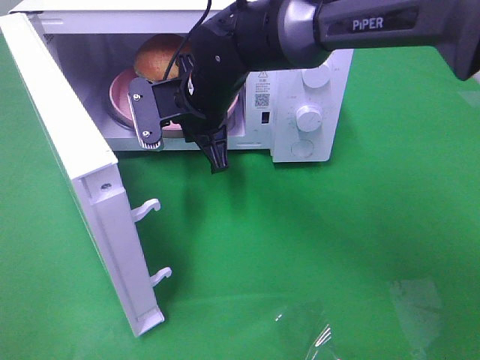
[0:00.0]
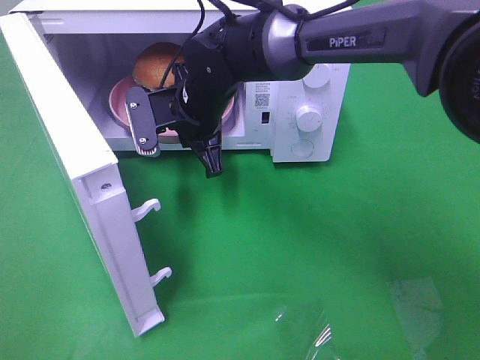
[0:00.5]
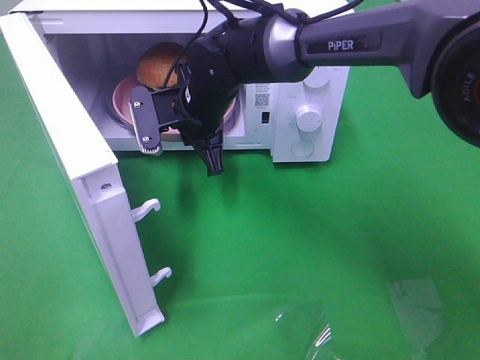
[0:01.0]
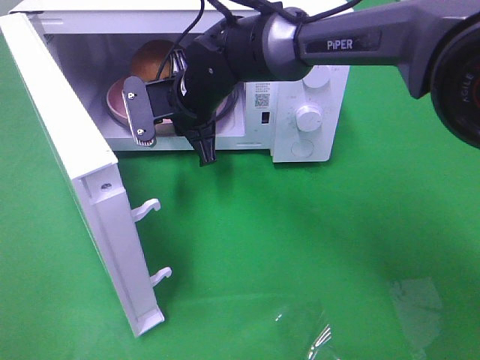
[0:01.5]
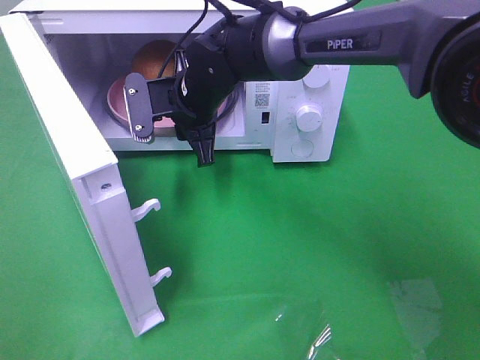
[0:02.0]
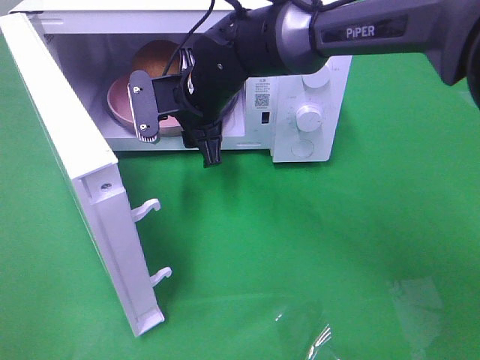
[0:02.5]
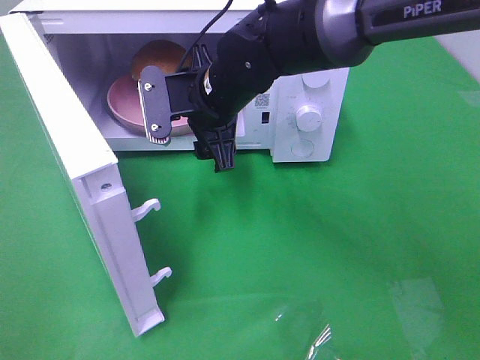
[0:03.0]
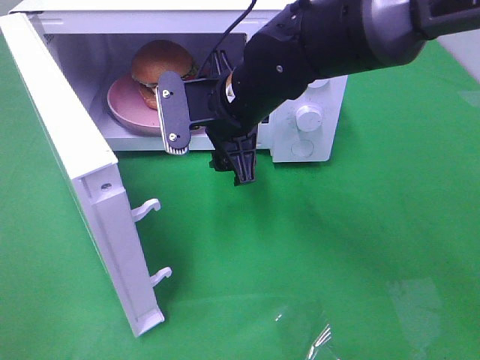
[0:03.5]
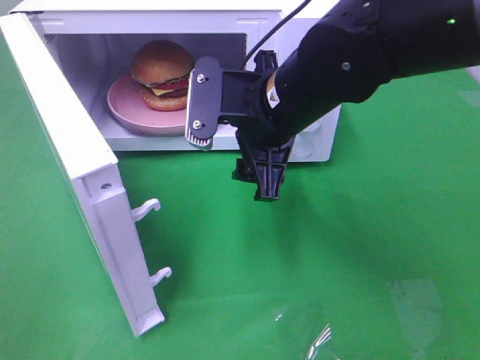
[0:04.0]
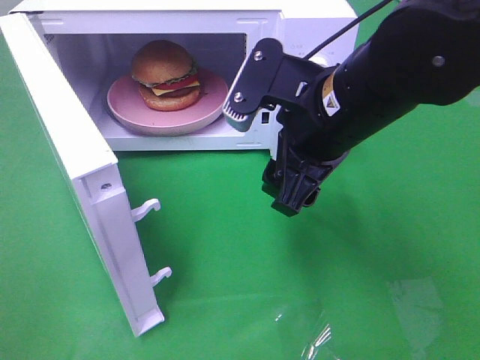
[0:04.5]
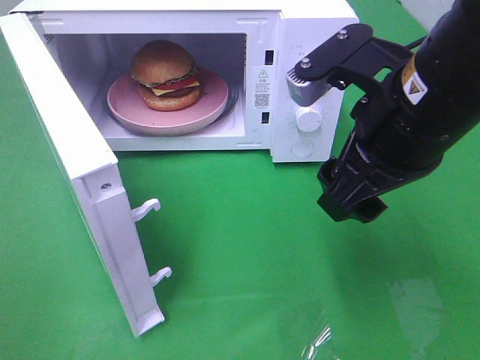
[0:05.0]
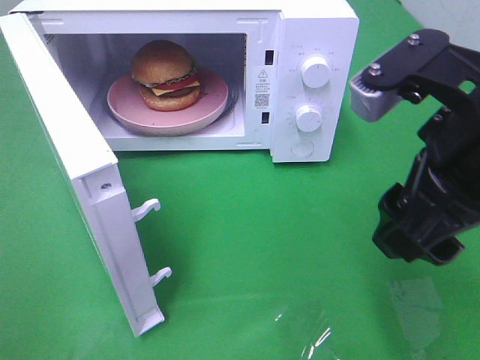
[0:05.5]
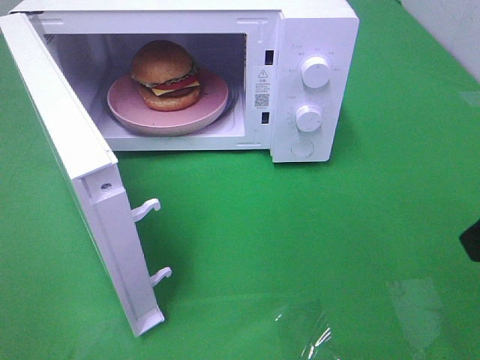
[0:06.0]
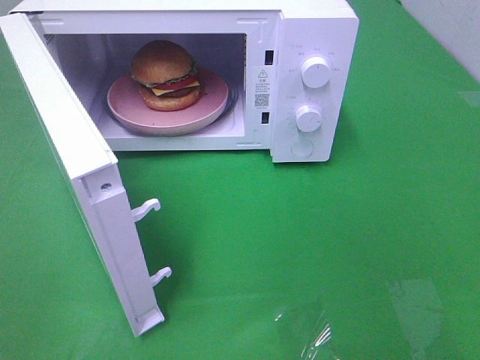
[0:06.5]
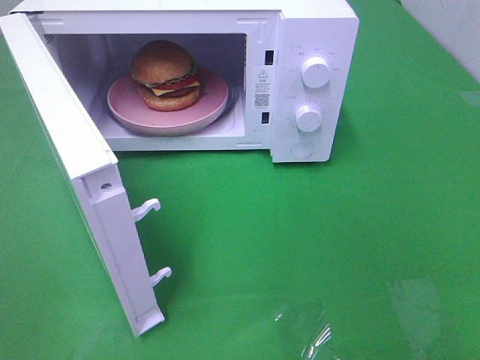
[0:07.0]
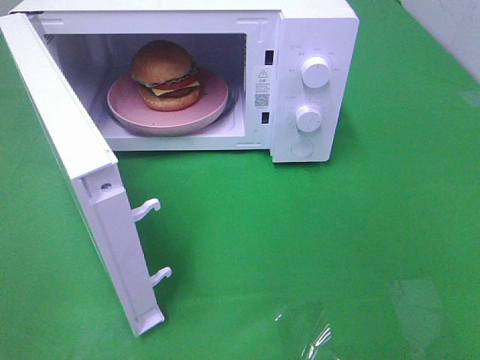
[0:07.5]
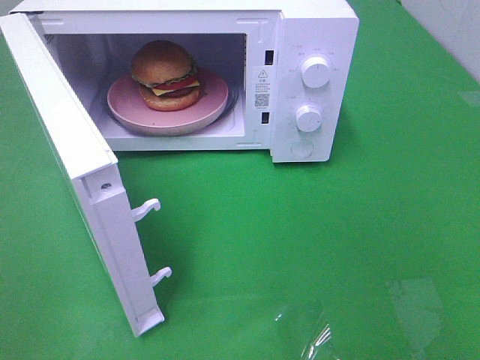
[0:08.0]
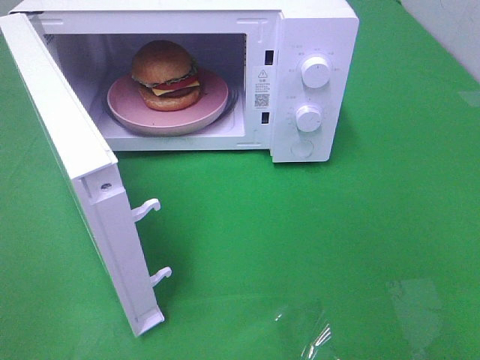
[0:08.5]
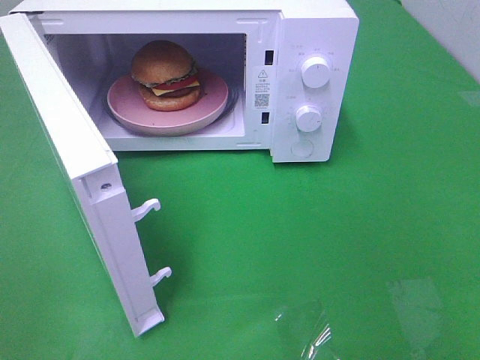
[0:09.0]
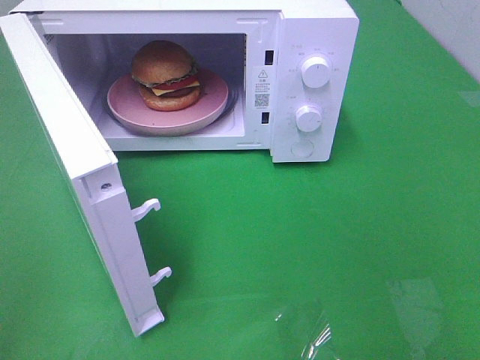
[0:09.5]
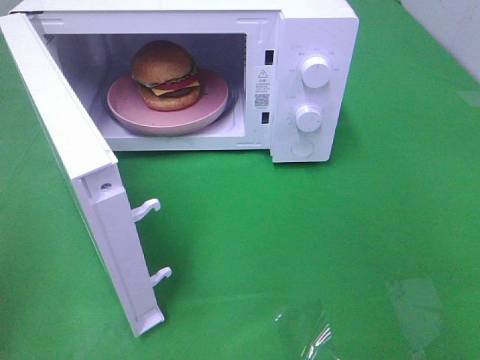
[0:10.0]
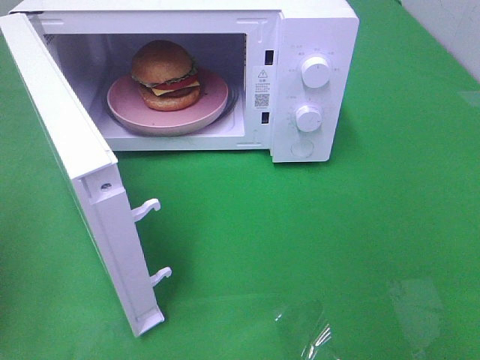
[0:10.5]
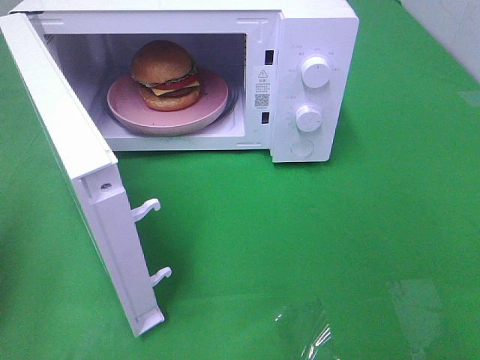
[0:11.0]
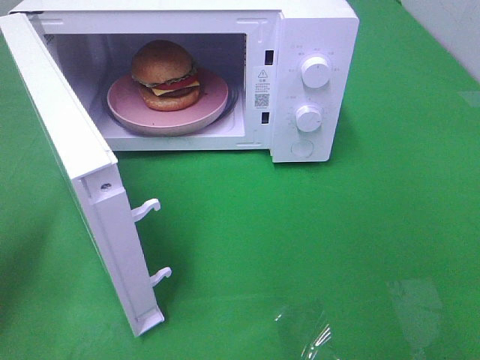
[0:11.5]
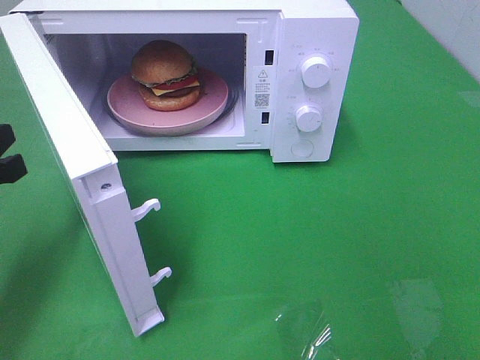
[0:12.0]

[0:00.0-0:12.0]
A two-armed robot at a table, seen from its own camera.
Task of the whole recording: Heat the burger.
Step, 0:00.0 to 0:02.0: Right hand: place the plate in the microwave.
0:00.0 to 0:02.0: The right gripper opens up.
0:02.0 to 0:04.0: The right gripper is displaced backward, to the right and upward by about 15 cm, and opens up.
0:04.0 to 0:06.0: The right gripper moves to the right and backward, about 25 cm.
0:10.0 to 0:12.0: The left gripper is displaced downward and forward by about 20 cm.

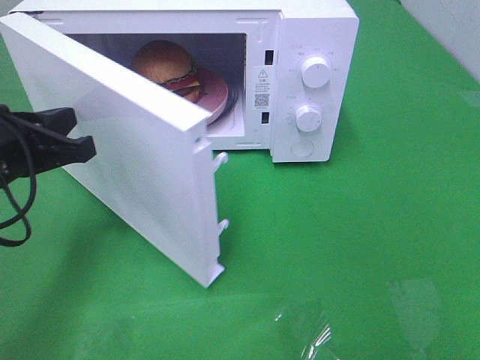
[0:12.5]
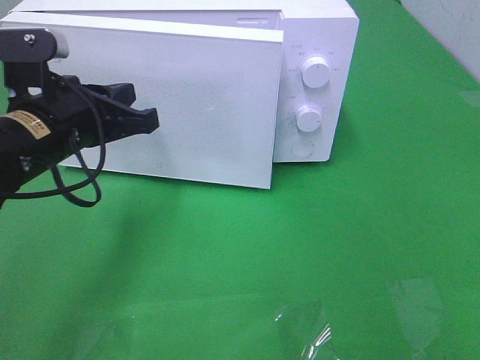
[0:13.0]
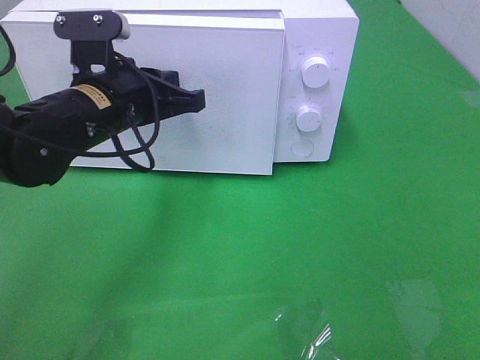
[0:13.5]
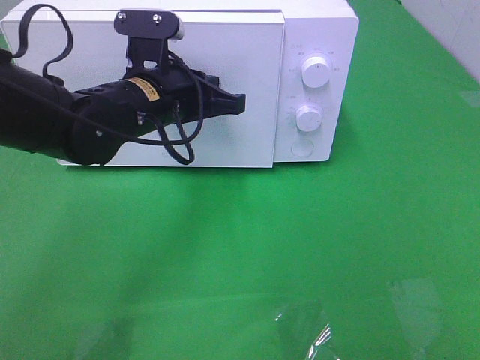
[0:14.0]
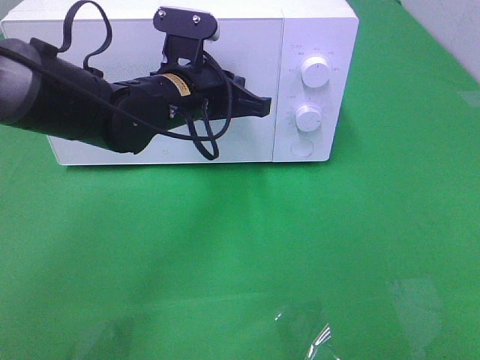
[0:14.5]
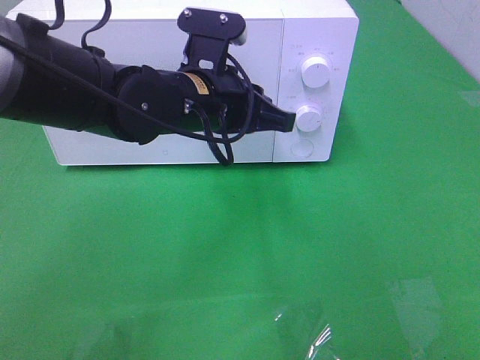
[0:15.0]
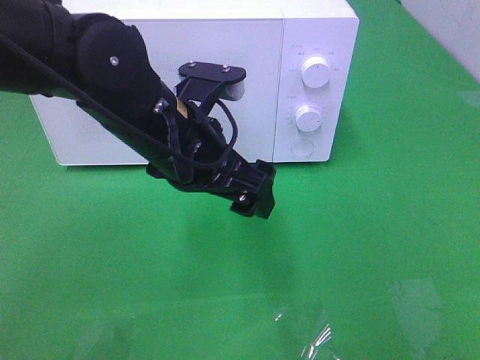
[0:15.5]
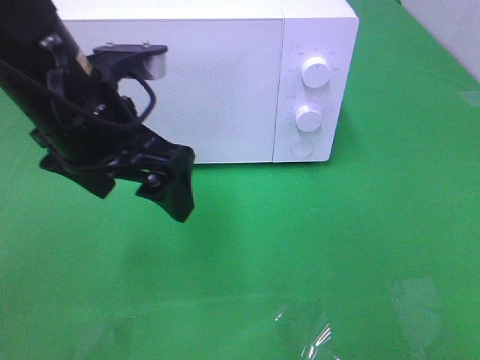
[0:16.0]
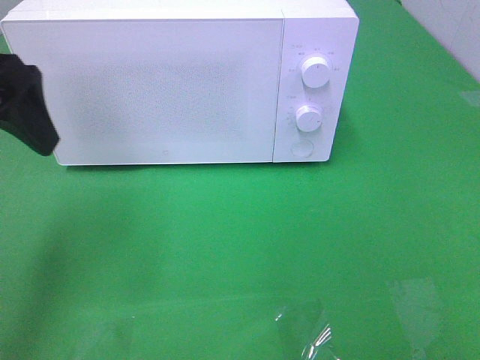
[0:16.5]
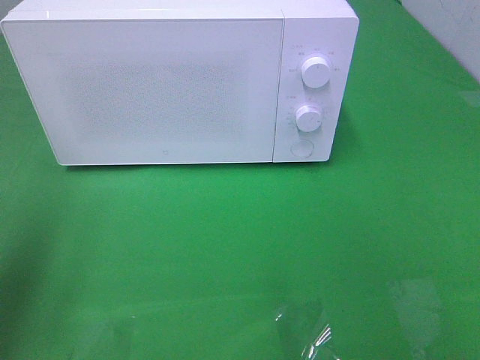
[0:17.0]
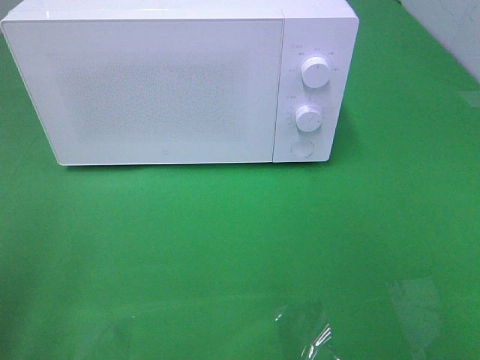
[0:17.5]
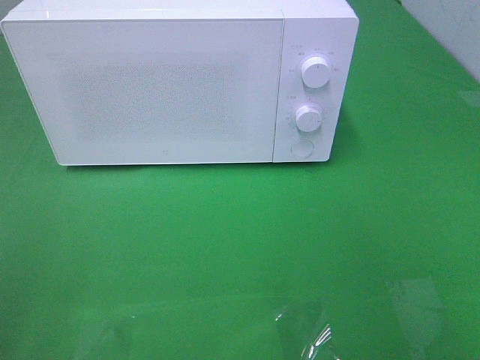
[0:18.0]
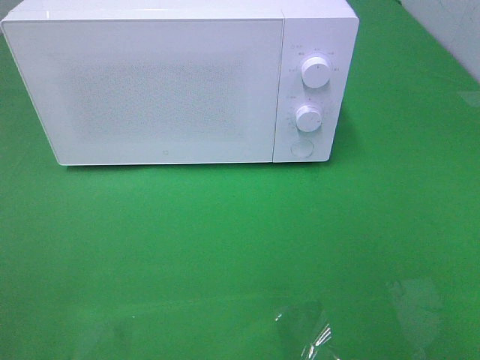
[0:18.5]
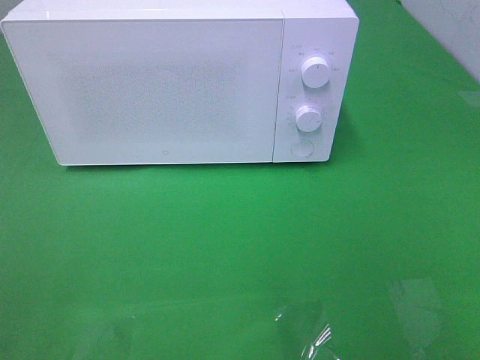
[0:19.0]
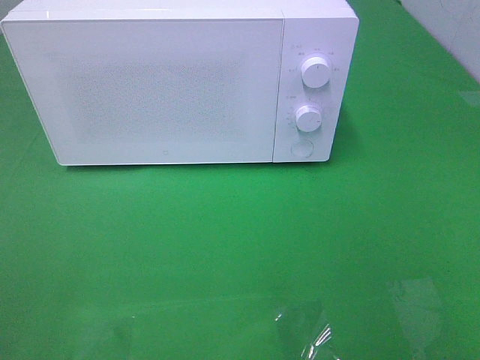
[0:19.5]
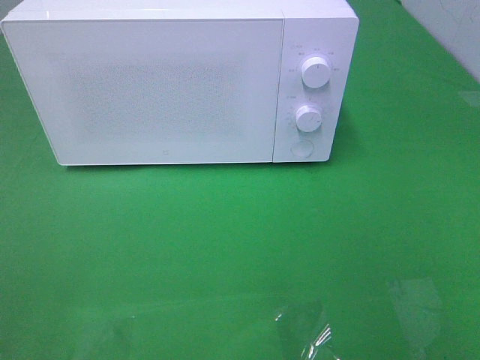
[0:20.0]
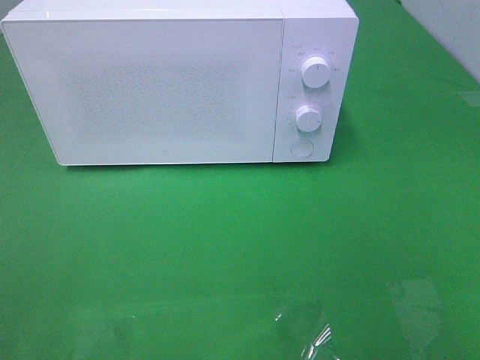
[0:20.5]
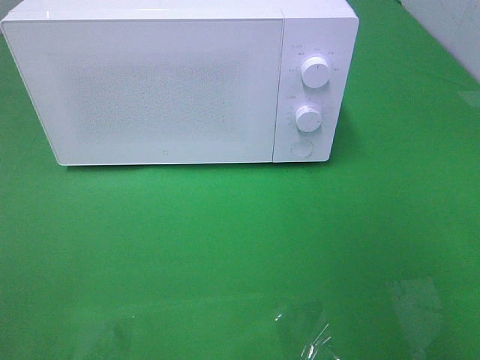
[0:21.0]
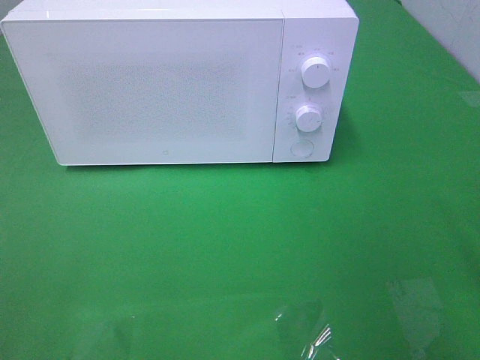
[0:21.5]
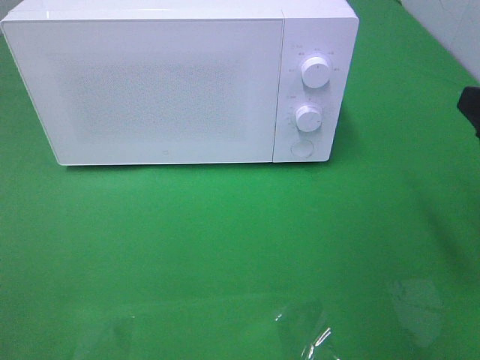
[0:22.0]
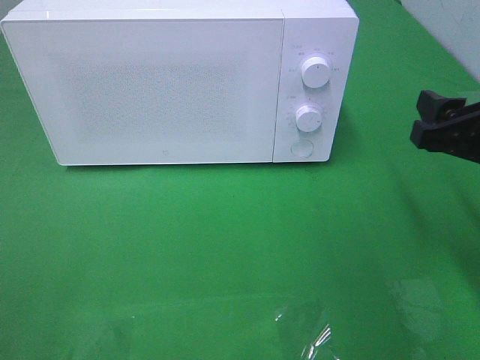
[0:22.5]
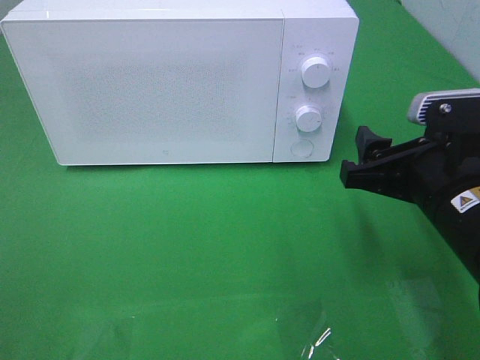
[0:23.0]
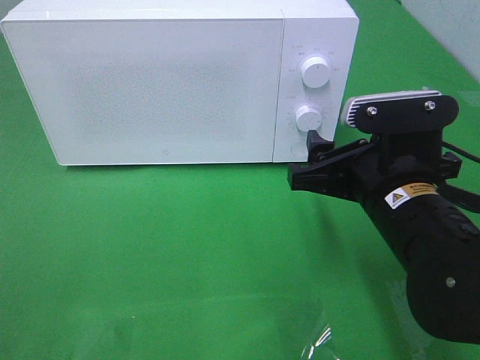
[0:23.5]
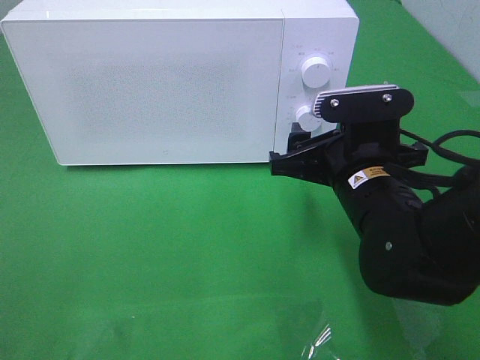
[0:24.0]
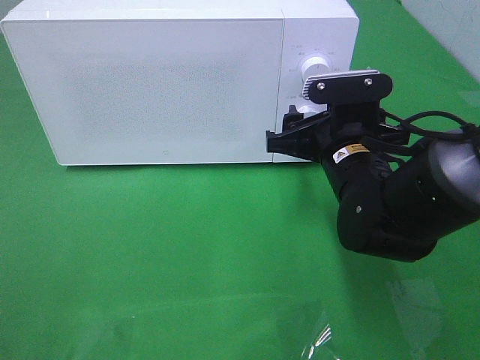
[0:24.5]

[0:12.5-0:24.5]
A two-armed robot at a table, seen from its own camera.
Task of the whole recording: Heat the burger.
Step, 0:12.5 to 0:15.0: Left hand: close the microwave door.
0:12.5 to 0:14.5: The left gripper shifts about 20 cm to the right and forward.
0:14.5 to 0:16.5: The left gripper heads to the left, upward and backward, covering some 25 cm, and opens up.
0:16.5 to 0:18.5: The left gripper is displaced backward by some 25 cm.
0:20.5 to 0:22.5: The right gripper travels forward and downward by roughly 20 cm.
0:22.5 to 0:24.5: The right gripper heads to the left, forward and downward, covering about 15 cm.

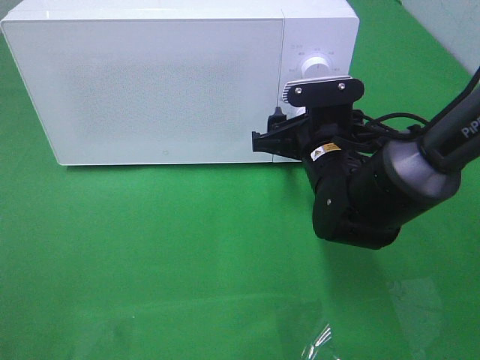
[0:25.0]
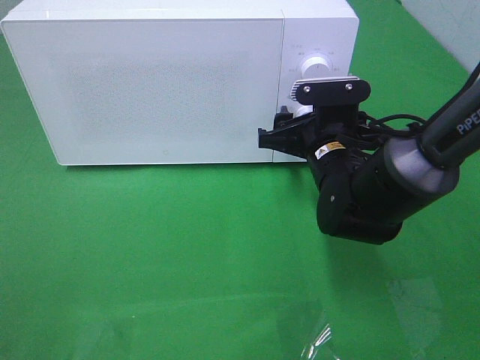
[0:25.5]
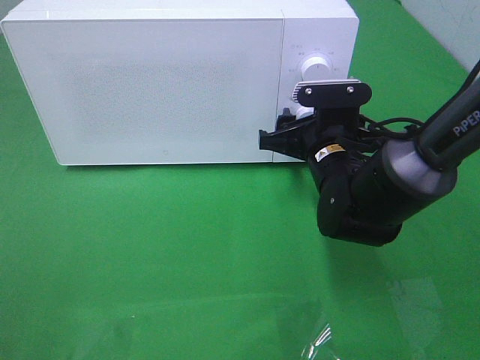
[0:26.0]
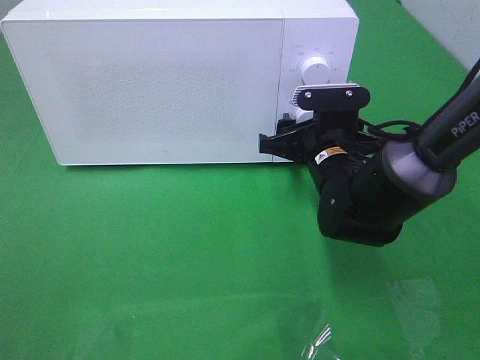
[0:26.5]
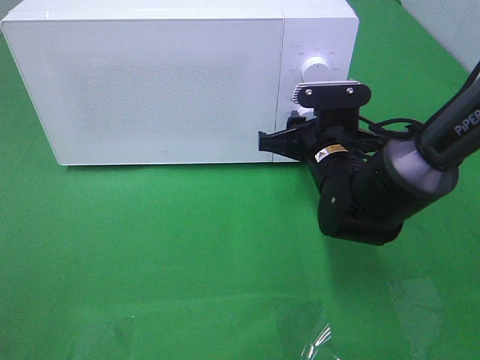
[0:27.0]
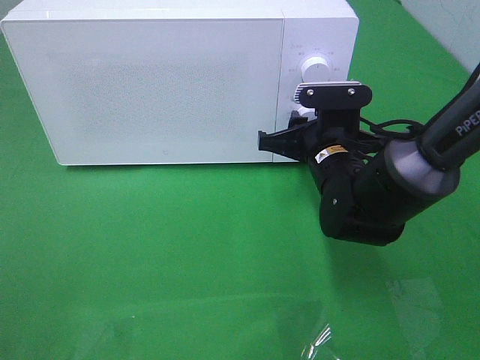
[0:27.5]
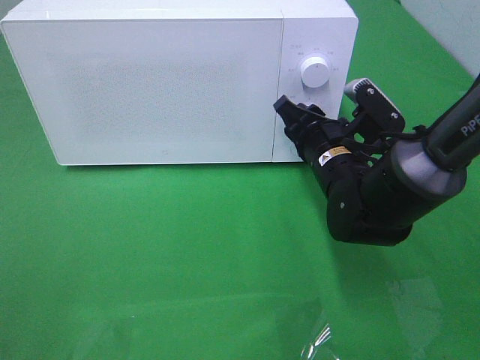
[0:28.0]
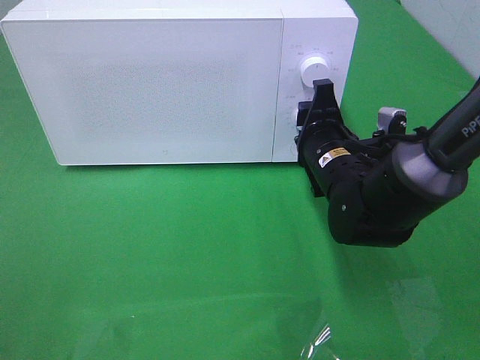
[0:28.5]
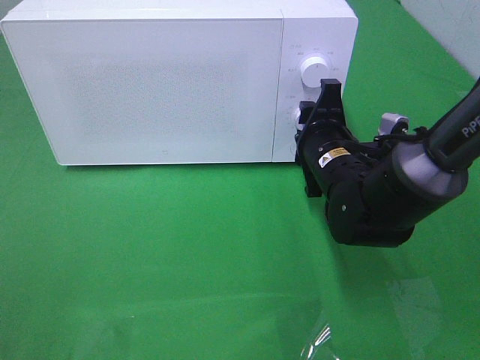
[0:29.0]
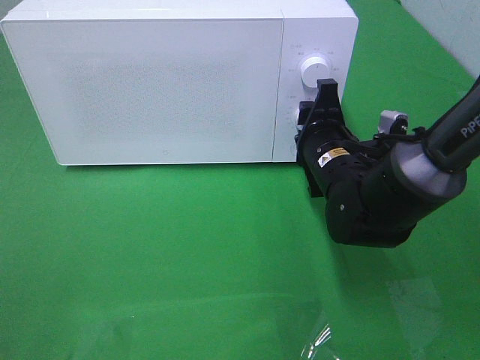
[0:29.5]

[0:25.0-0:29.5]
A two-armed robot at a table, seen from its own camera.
Task of the whole recording: Heat the burger.
0:25.0 to 0:27.0: The right gripper closes.
